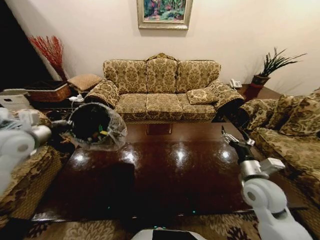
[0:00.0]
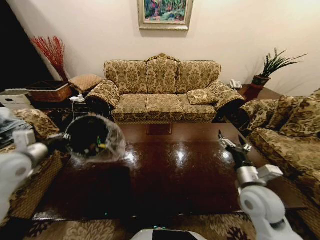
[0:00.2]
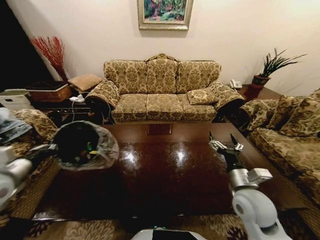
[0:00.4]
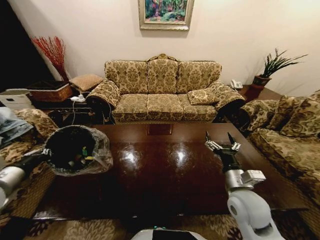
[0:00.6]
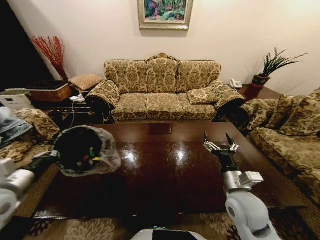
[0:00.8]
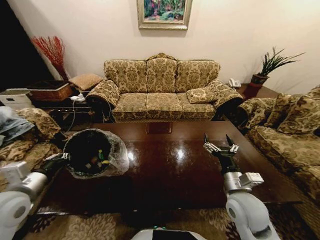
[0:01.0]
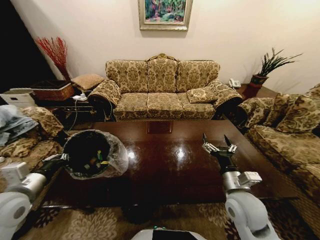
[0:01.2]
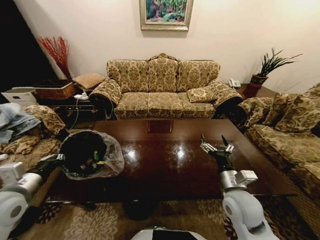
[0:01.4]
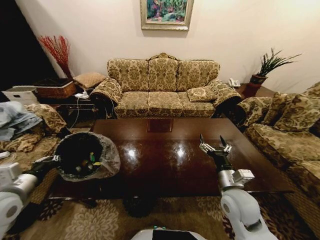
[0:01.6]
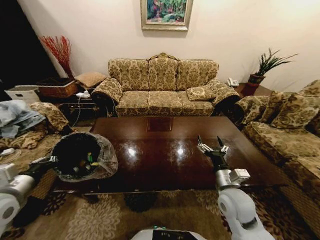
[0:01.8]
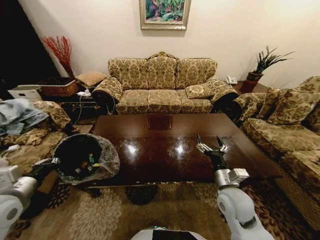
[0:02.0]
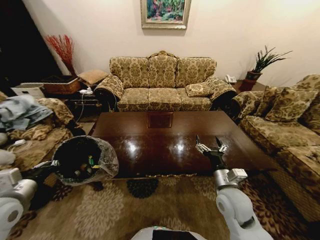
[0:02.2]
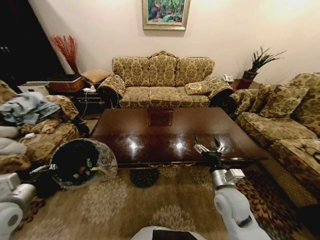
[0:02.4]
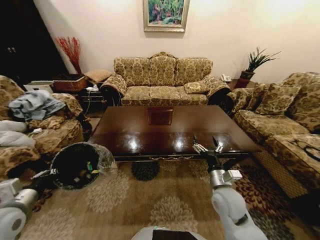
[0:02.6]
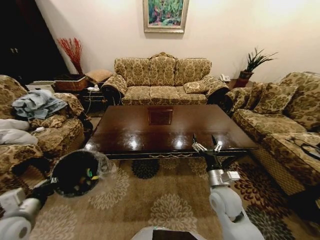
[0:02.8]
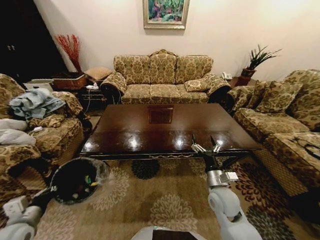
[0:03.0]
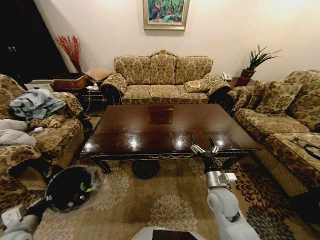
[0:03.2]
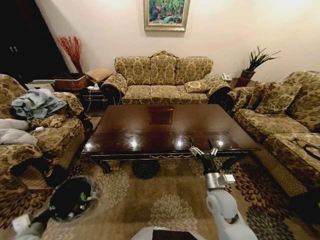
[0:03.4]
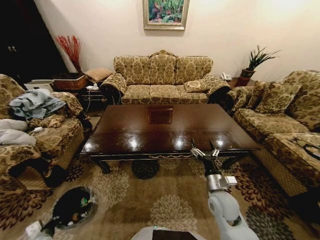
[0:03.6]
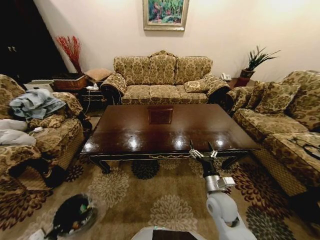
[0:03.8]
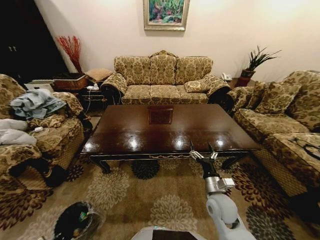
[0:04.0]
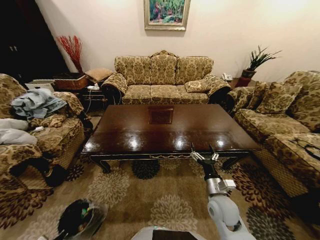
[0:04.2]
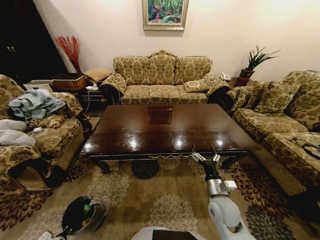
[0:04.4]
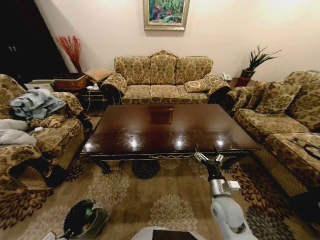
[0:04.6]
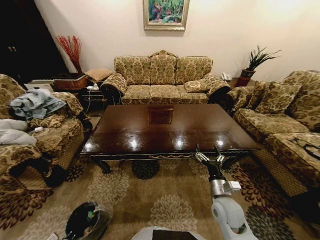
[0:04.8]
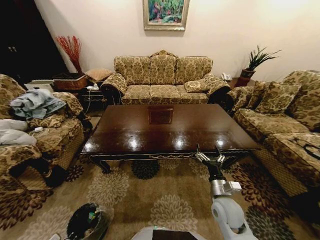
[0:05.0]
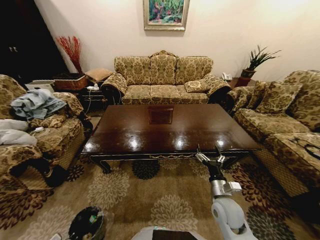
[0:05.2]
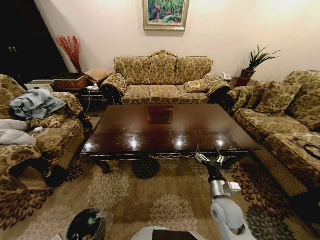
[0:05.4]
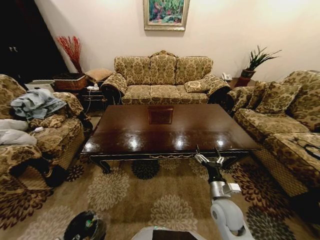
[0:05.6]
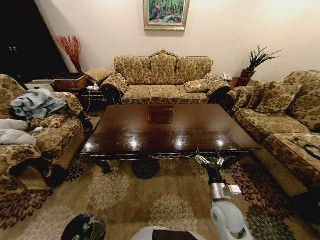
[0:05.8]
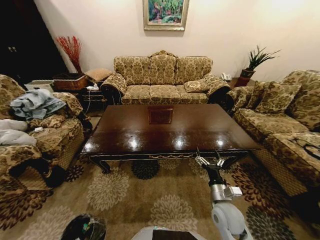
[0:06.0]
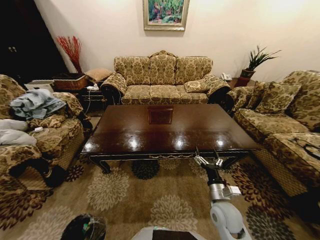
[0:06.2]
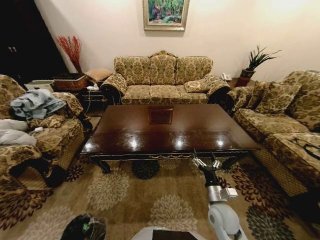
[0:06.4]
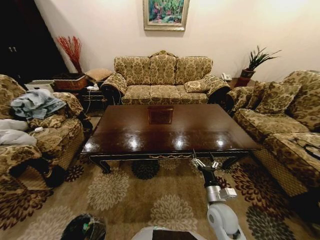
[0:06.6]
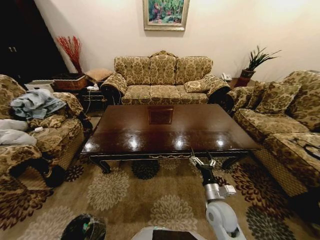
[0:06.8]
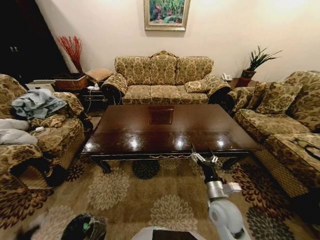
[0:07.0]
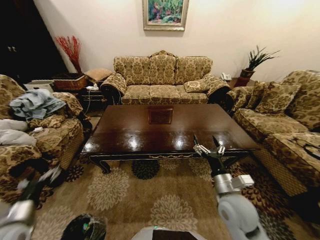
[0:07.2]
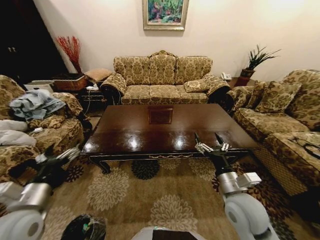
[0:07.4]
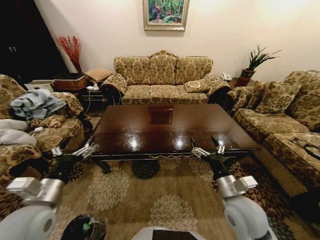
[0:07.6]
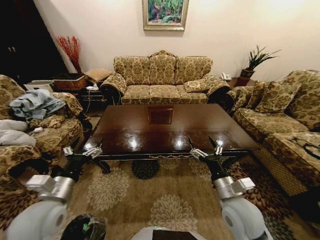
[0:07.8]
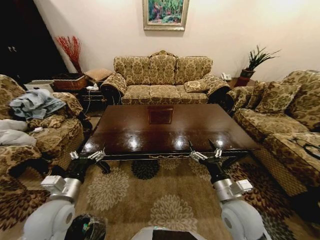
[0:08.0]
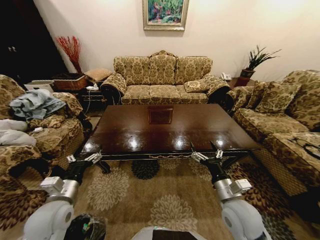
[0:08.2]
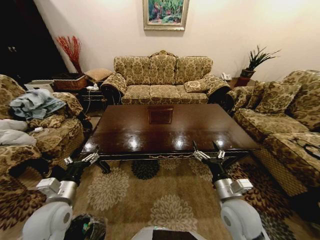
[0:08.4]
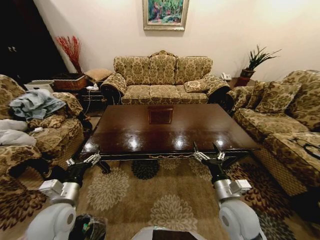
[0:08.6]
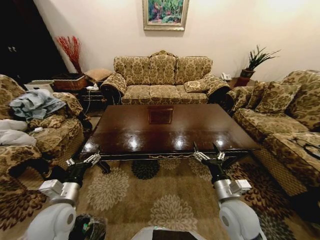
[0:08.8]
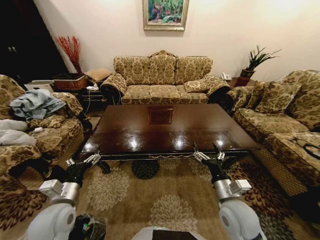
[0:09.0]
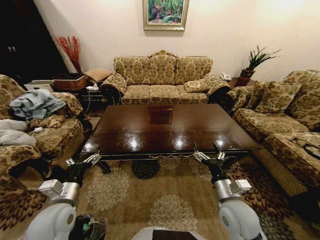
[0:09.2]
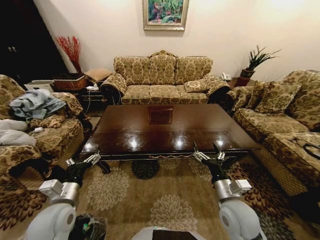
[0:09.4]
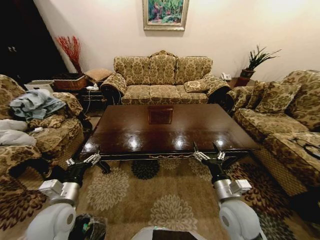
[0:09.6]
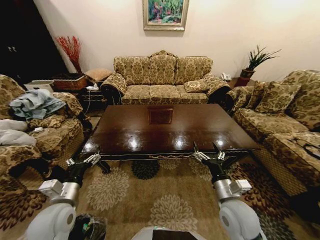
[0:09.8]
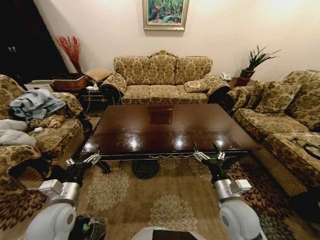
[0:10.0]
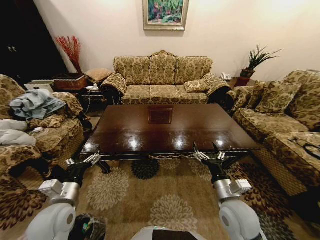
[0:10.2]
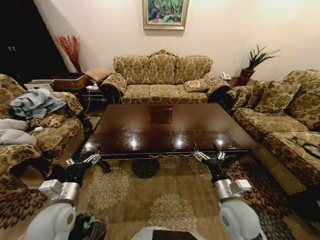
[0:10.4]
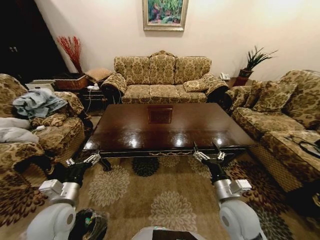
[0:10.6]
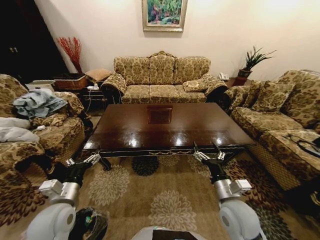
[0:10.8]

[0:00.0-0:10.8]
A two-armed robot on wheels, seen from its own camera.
Task of the whole recording: Move to the front of the table and place the trash on the table into the trash bin.
0:00.0 to 0:01.6: The left gripper heads backward and downward, covering roughly 15 cm. Meanwhile the right gripper is displaced to the left by some 10 cm.
0:01.6 to 0:03.0: The right gripper travels downward by some 5 cm, while the left gripper is displaced downward and backward by about 15 cm.
0:03.0 to 0:04.6: The left gripper travels downward by some 35 cm.
0:04.6 to 0:06.2: The left gripper travels backward by some 5 cm, and opens.
0:06.2 to 0:07.8: The right gripper shifts some 10 cm upward. The left gripper goes approximately 40 cm upward.
0:07.8 to 0:09.2: There are only small adjustments of the grippers.
0:09.2 to 0:10.8: The two grippers keep their place.

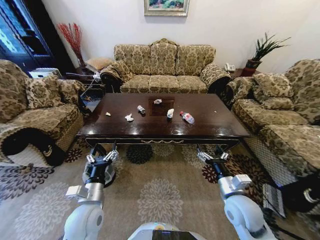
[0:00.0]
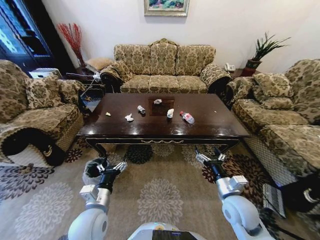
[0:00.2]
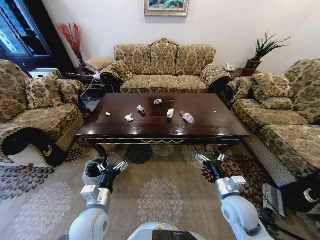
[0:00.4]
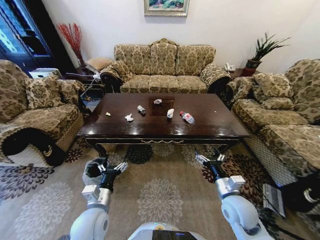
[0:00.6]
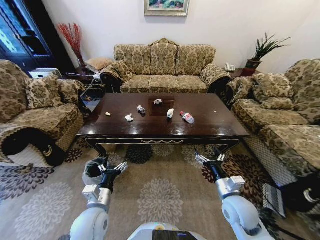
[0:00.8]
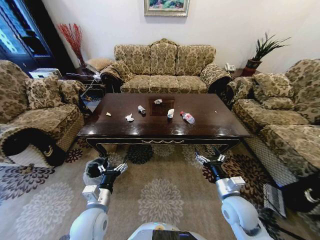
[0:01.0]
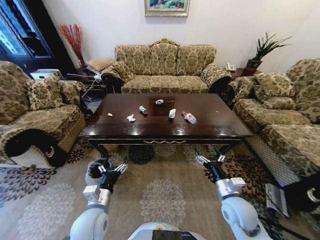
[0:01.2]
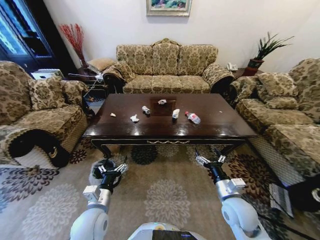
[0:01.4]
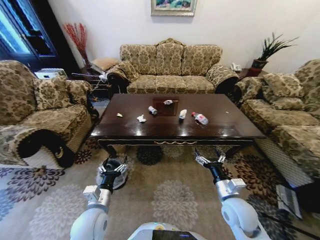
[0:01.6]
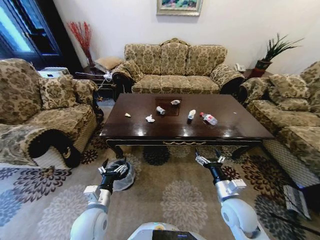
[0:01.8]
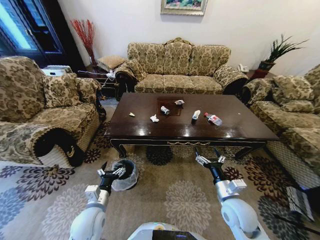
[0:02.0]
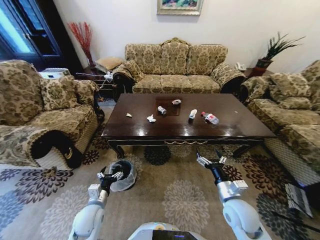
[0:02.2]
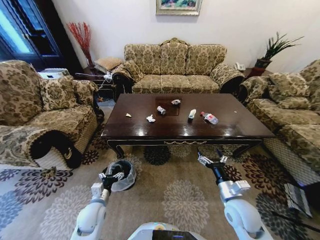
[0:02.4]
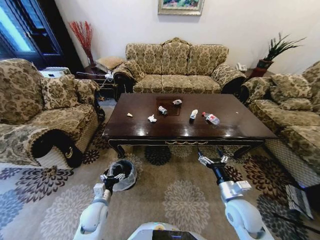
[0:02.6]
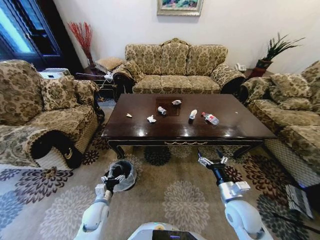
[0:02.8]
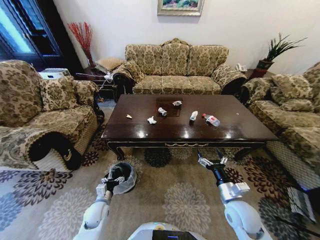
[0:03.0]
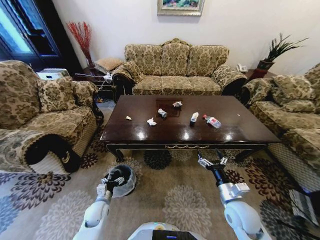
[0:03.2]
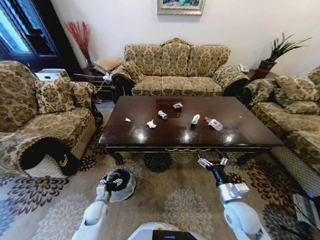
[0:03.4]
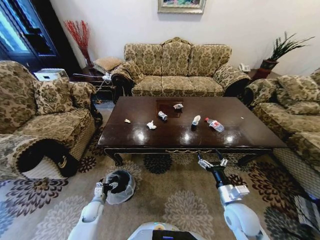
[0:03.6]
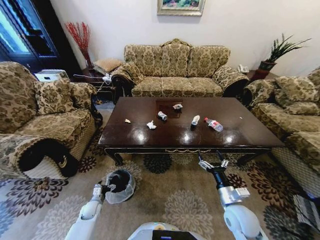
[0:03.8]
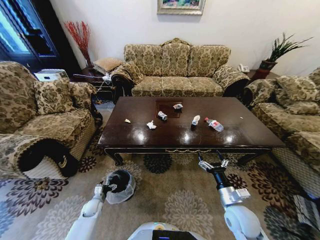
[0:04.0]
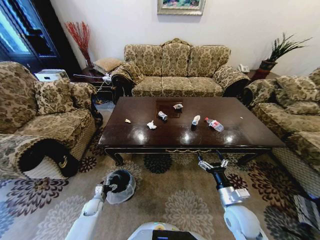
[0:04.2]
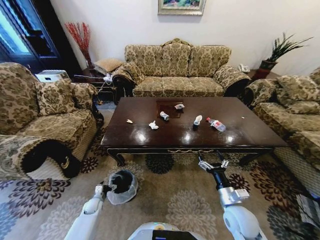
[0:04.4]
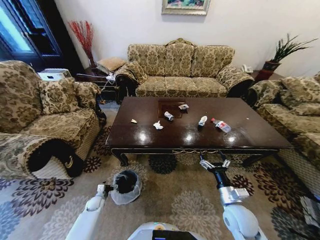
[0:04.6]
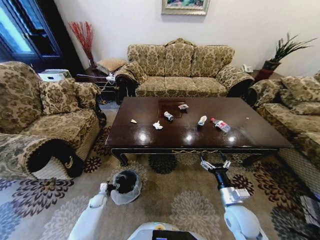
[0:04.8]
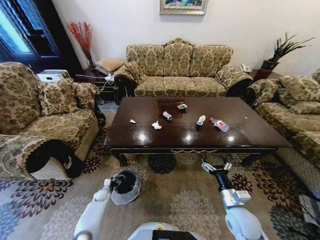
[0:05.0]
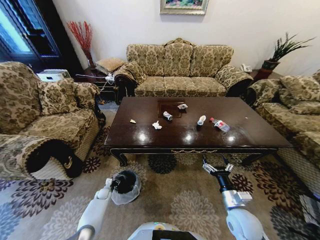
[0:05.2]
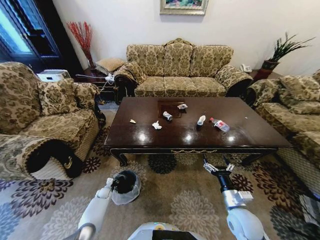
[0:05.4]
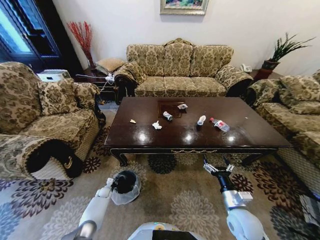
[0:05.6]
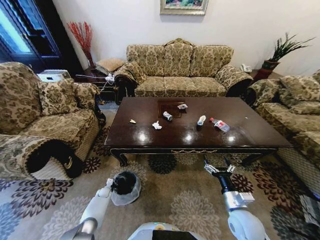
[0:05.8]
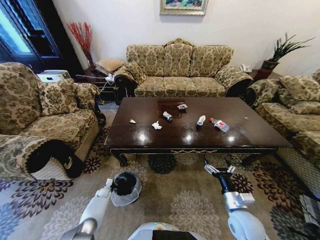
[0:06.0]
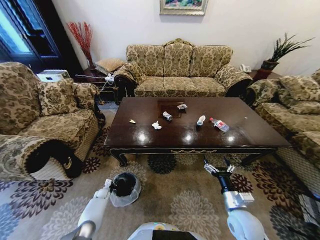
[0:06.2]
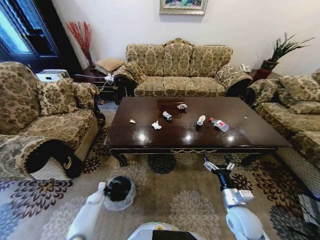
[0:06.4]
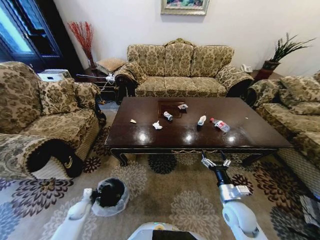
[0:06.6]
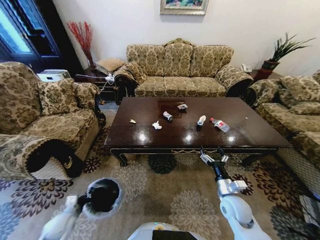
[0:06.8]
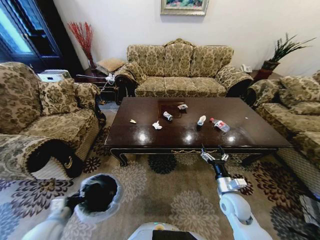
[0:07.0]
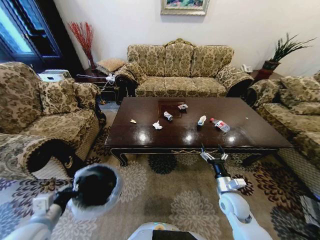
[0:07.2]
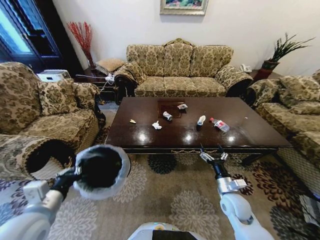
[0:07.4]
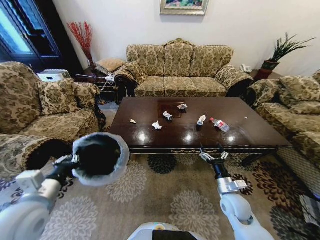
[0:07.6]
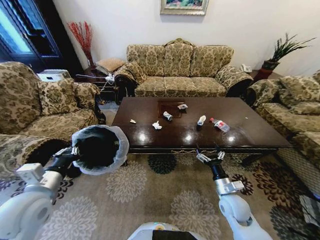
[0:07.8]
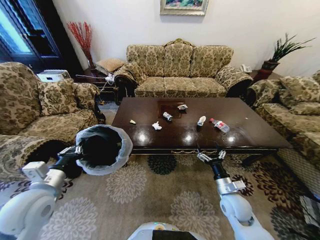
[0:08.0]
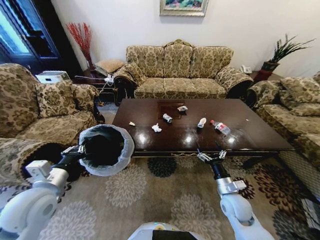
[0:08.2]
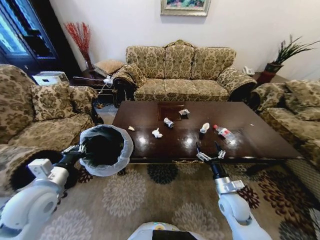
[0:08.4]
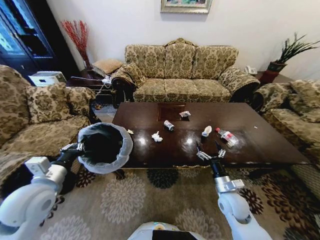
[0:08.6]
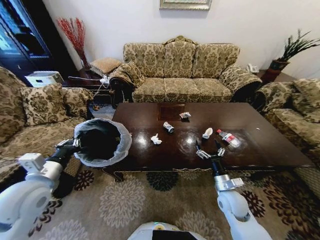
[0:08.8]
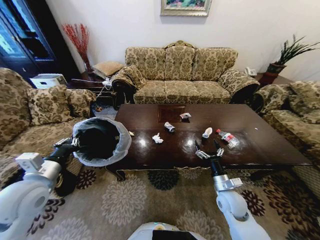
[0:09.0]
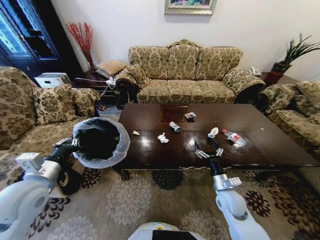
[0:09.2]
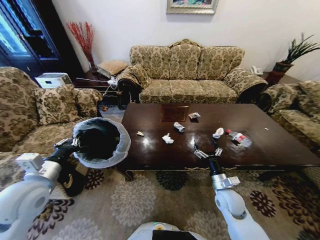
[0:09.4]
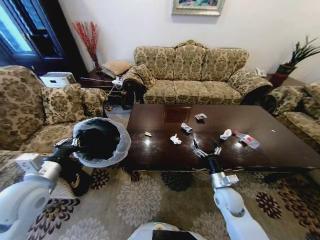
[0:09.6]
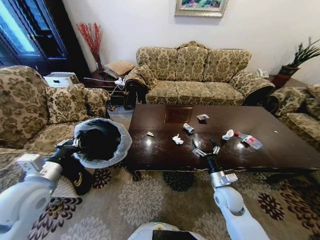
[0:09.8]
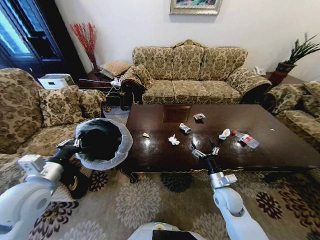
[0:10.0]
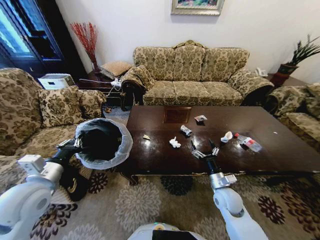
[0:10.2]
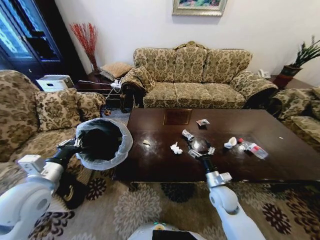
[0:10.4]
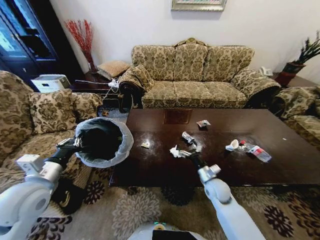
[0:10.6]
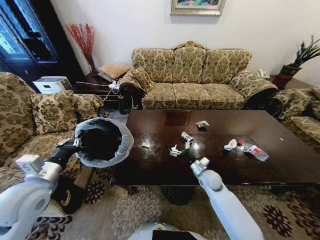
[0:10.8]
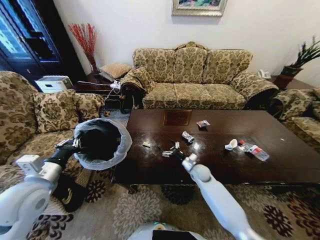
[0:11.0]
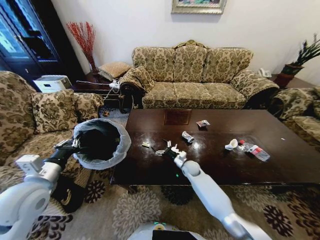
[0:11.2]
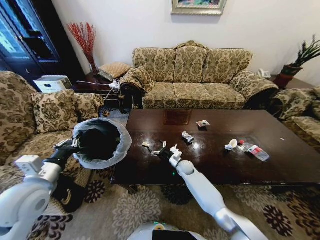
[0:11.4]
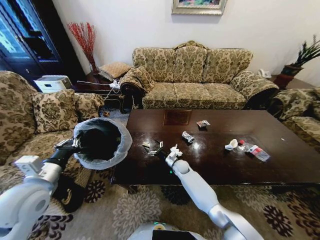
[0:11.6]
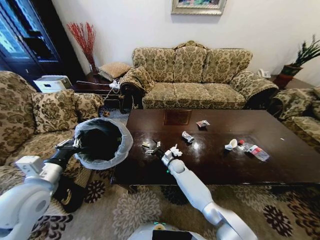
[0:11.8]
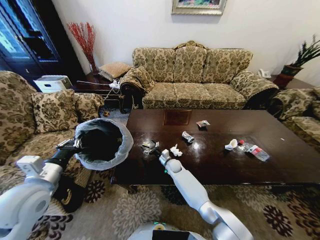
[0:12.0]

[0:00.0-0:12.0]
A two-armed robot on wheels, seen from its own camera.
Task of the whole recording: Move to the front of the table and place the trash on the table into the trash bin.
0:01.6 to 0:03.0: The left gripper travels downward and to the left by about 15 cm.
0:03.0 to 0:04.4: The left gripper goes approximately 15 cm downward and to the left.
0:04.4 to 0:06.0: The left gripper travels forward and downward by about 10 cm, and closes up.
0:06.0 to 0:07.6: The left gripper shifts about 50 cm upward. Meanwhile the right gripper heads forward, covering roughly 5 cm.
0:07.6 to 0:09.0: The left gripper moves some 5 cm.
0:10.4 to 0:12.0: The right gripper shifts approximately 30 cm to the left, forward and downward.
